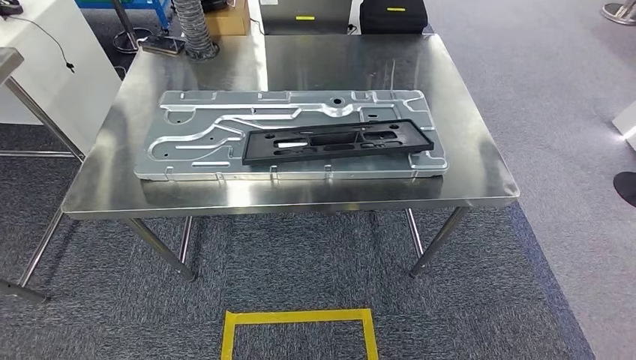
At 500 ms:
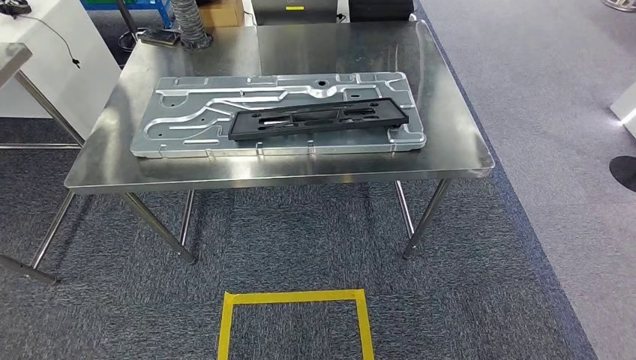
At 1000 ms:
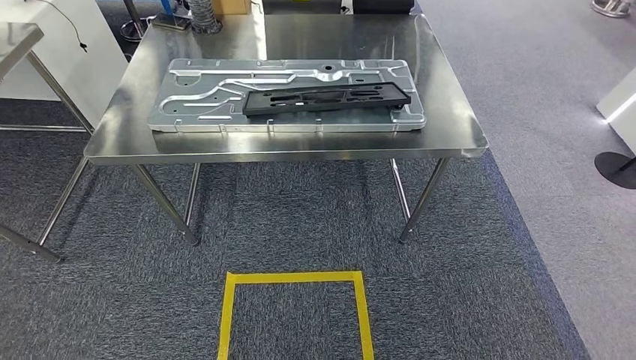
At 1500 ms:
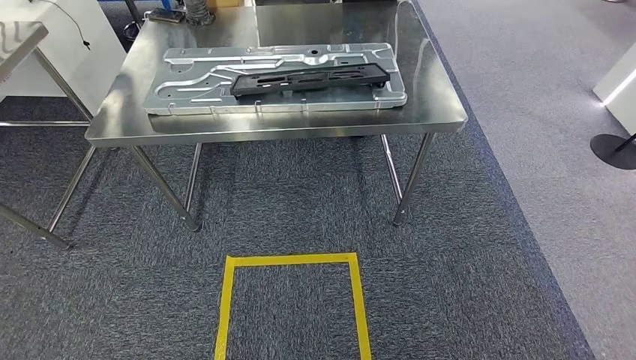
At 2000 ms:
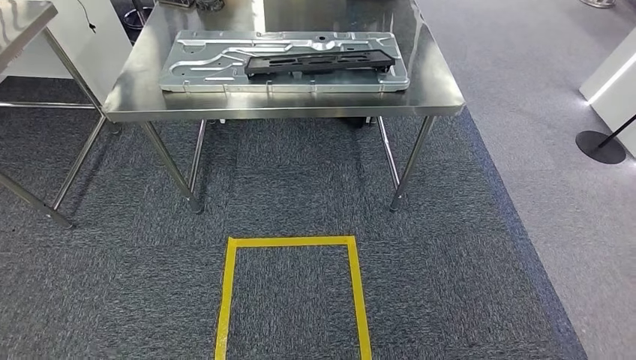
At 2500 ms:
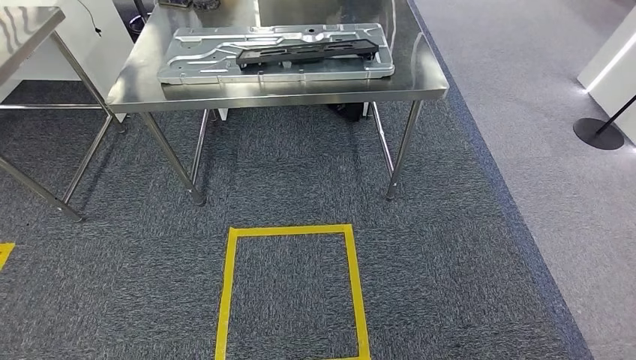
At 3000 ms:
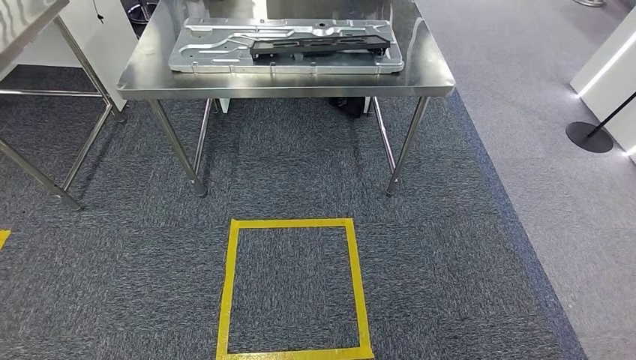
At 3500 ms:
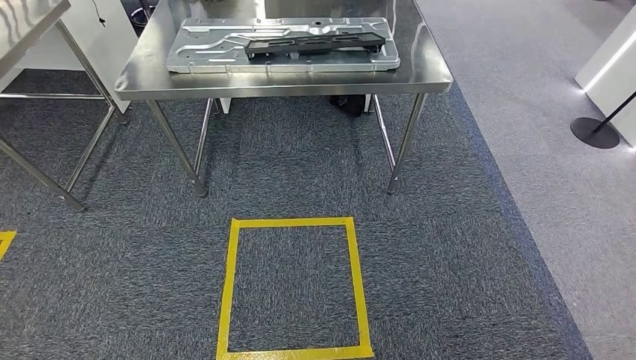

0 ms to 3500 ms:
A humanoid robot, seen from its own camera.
Step, 500 ms to 3500 ms: Move to the initial position of the shelf.
2000 ms to 3500 ms: The hands move only a little.
